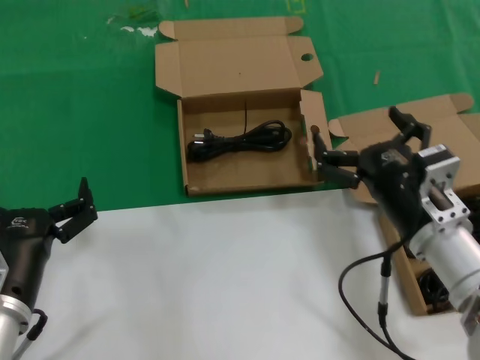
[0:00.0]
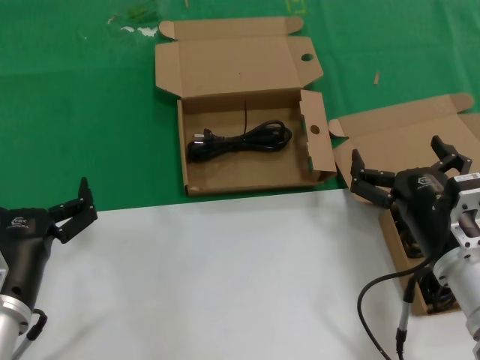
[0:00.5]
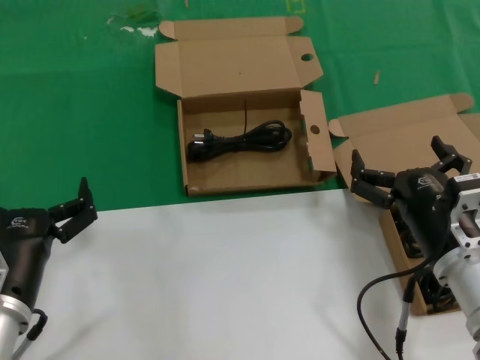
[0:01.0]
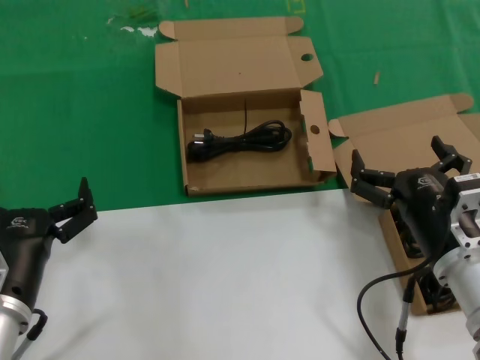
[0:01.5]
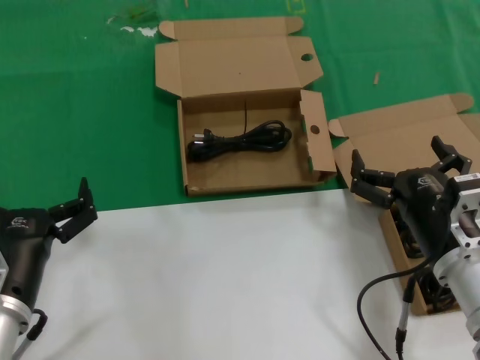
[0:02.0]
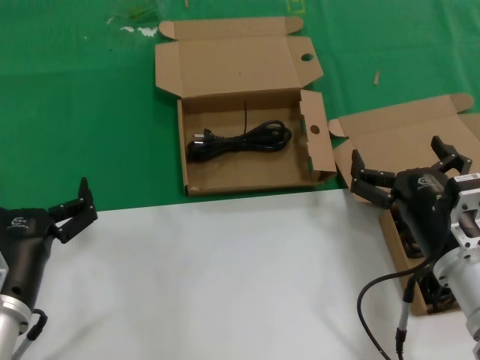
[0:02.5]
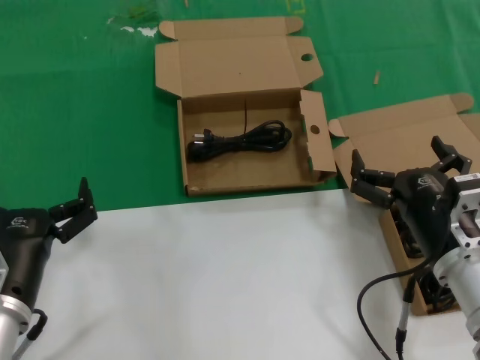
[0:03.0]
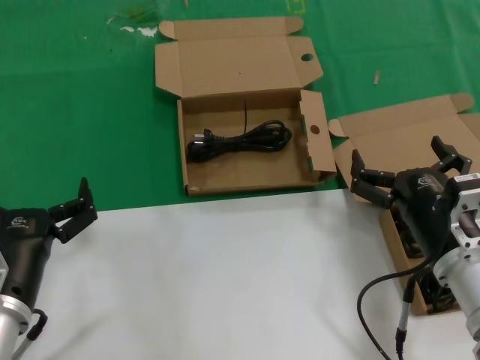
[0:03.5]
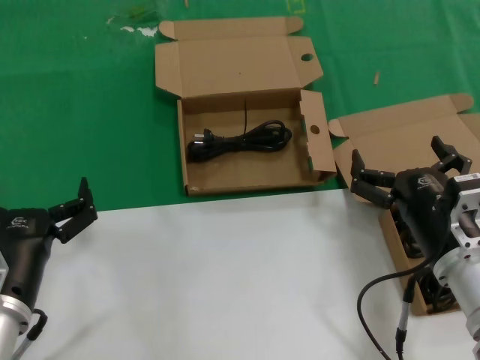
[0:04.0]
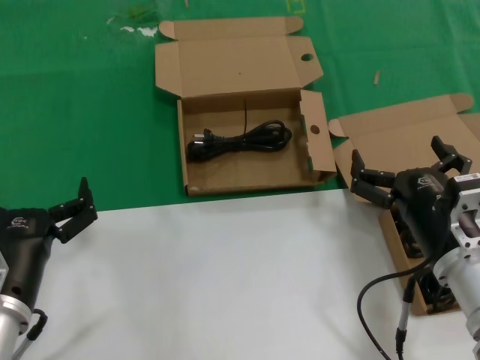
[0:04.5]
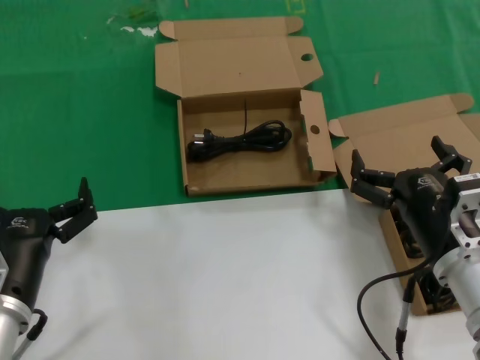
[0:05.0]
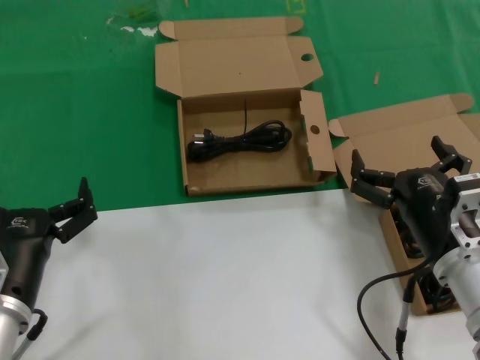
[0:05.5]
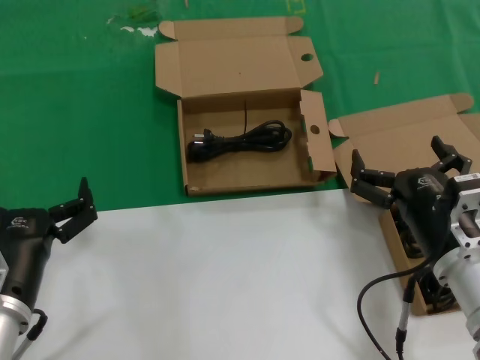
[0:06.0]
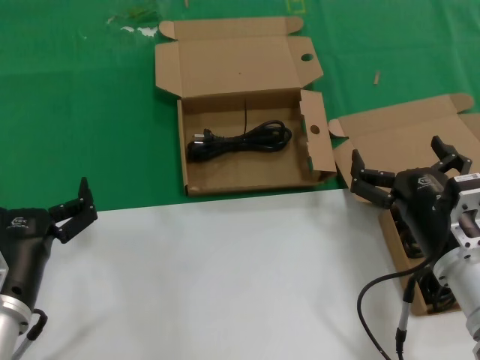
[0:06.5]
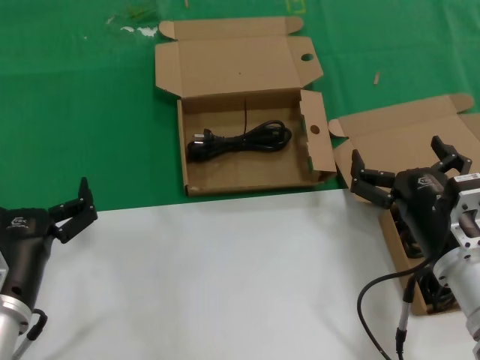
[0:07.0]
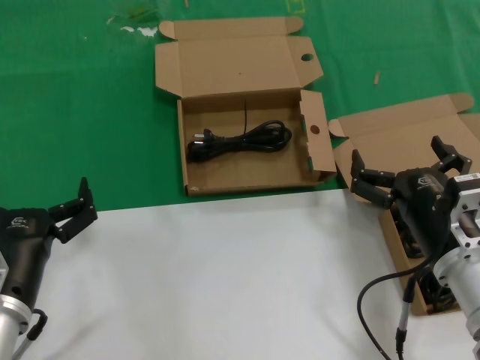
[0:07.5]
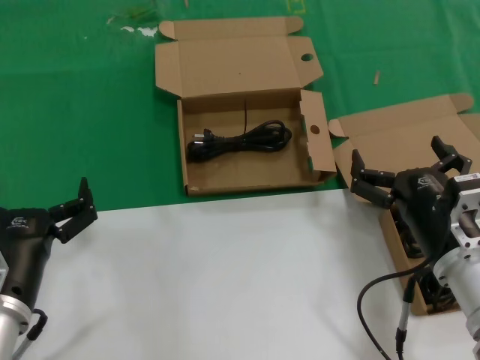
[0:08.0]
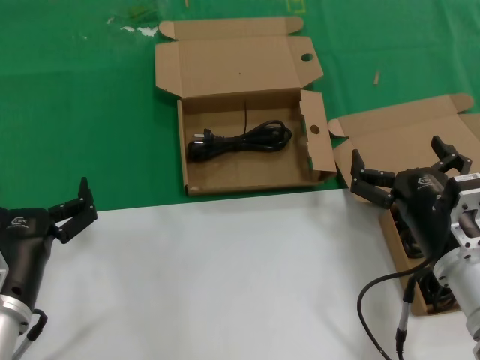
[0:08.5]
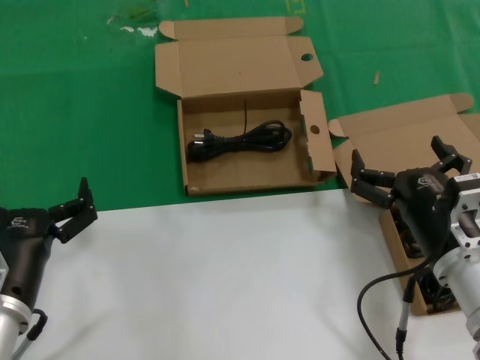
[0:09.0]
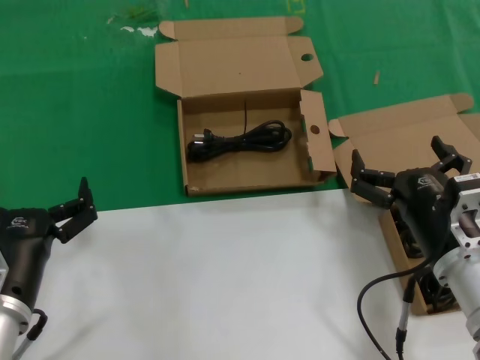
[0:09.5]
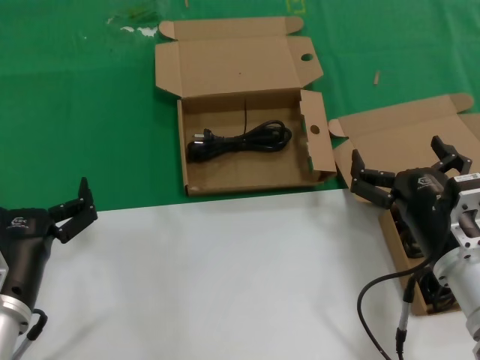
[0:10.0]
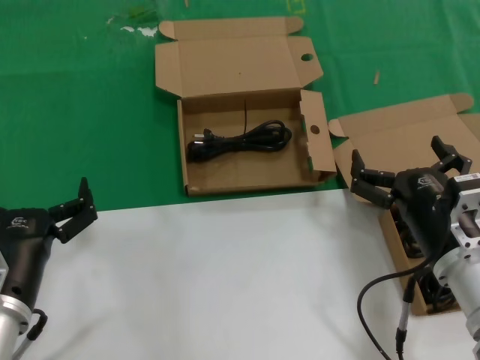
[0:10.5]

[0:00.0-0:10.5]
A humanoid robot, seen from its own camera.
Task of the whole recording: take the parts from the box containing them and put them into an empty box.
0:00.0 to 0:02.0: The hands stay close to where they were, moving slightly.
0:02.0 to 0:10.5: Neither hand changes place.
